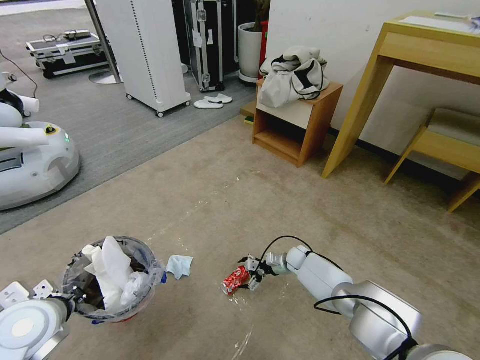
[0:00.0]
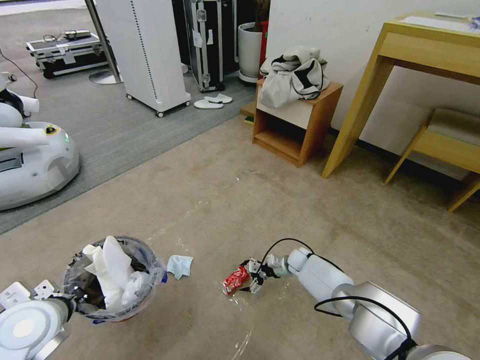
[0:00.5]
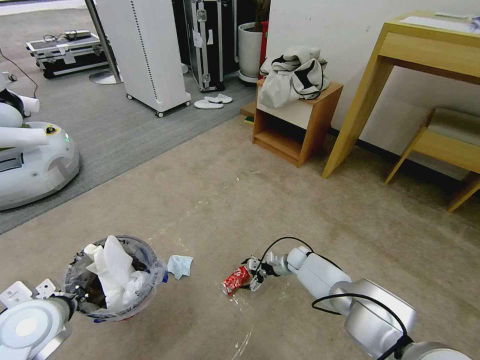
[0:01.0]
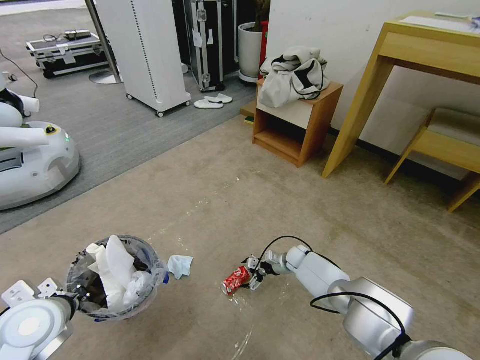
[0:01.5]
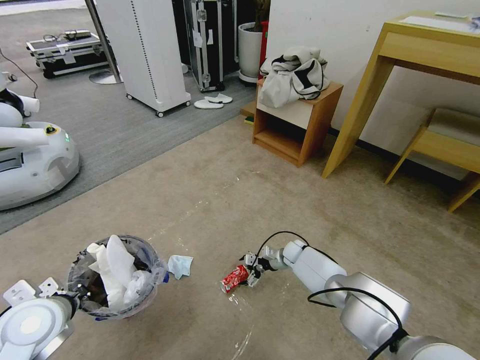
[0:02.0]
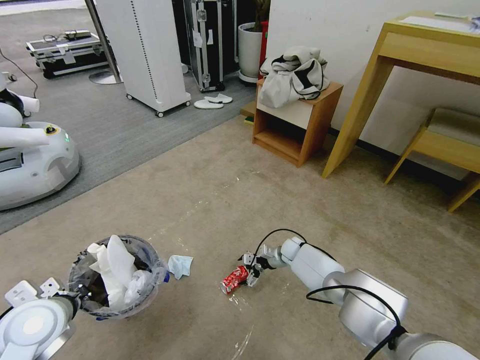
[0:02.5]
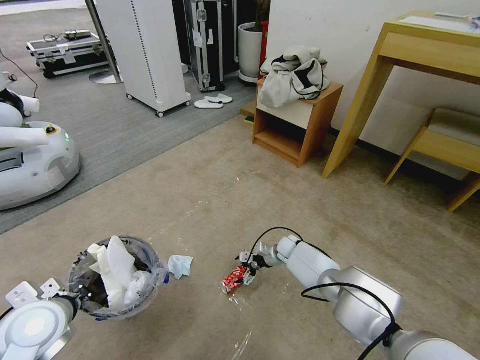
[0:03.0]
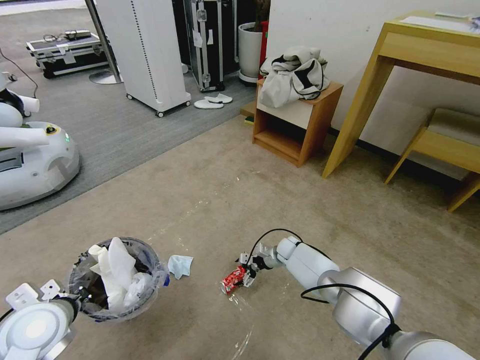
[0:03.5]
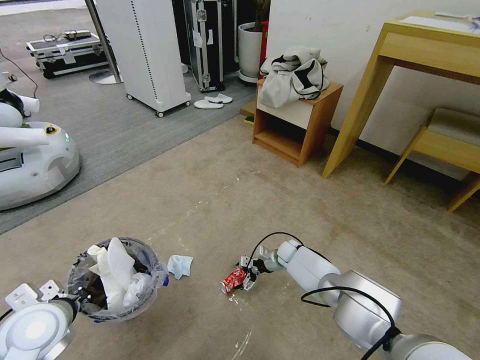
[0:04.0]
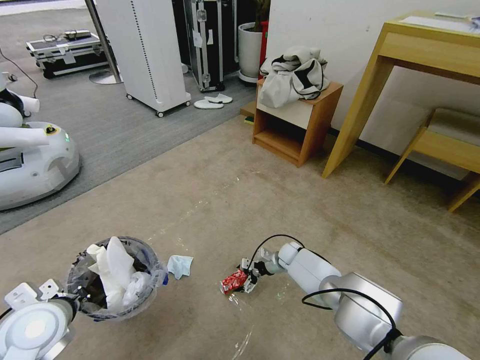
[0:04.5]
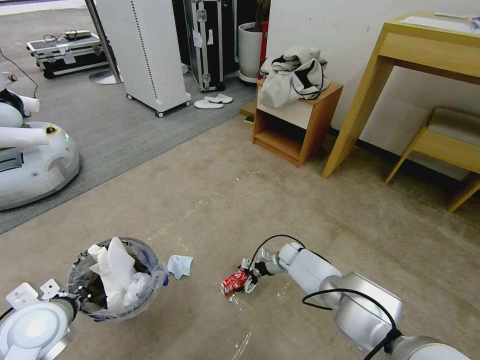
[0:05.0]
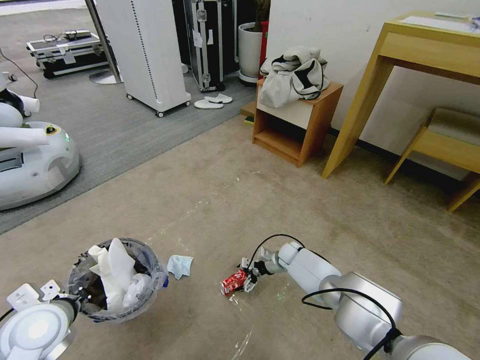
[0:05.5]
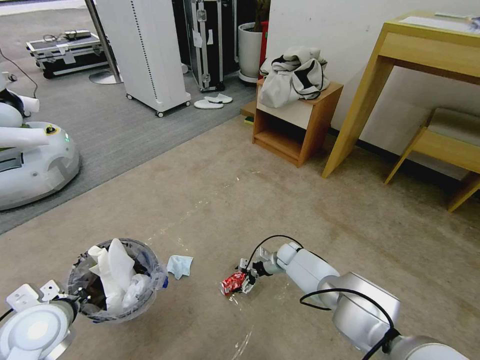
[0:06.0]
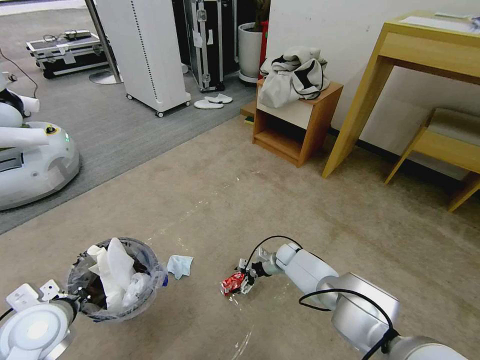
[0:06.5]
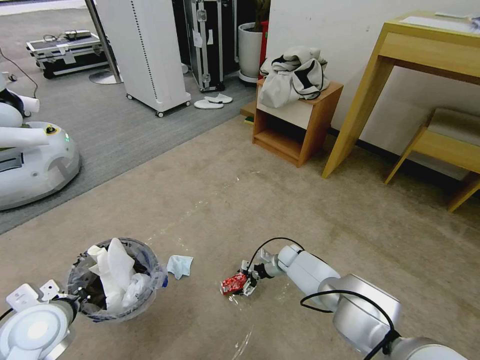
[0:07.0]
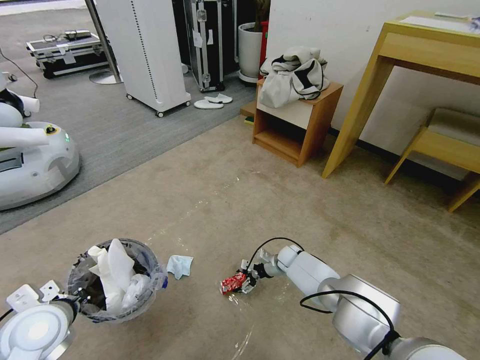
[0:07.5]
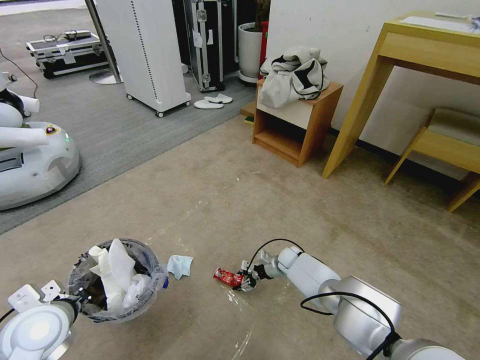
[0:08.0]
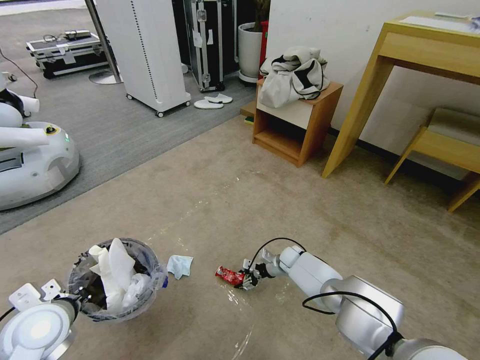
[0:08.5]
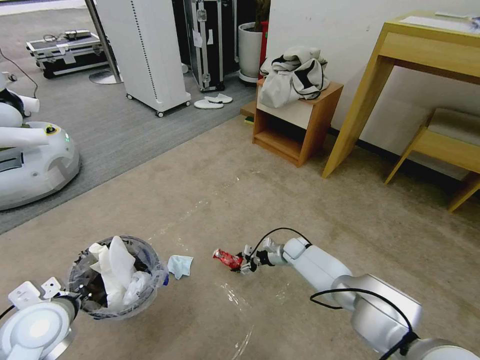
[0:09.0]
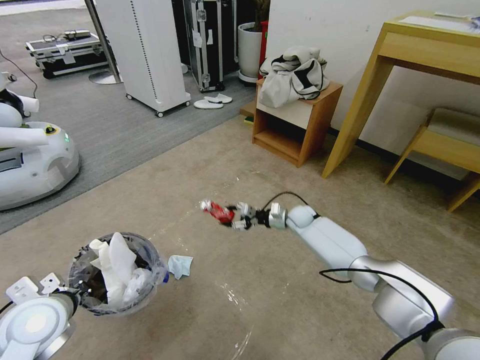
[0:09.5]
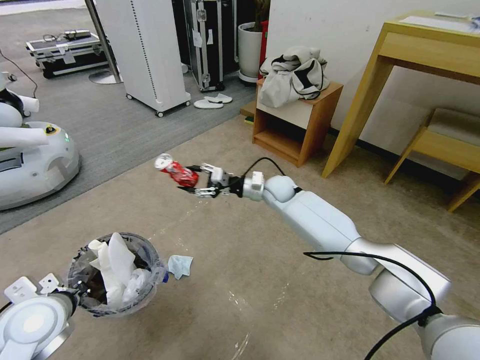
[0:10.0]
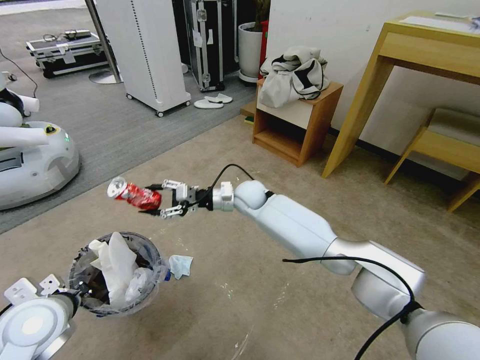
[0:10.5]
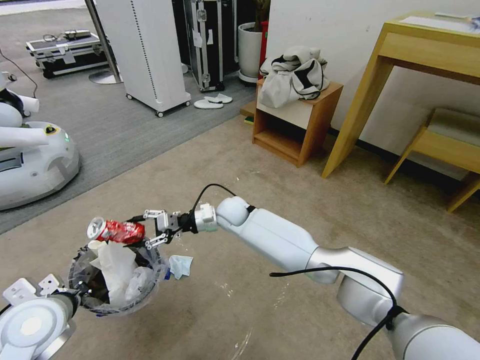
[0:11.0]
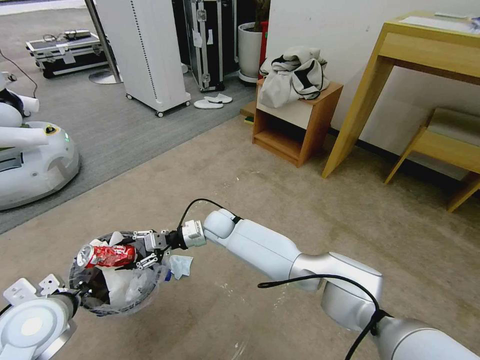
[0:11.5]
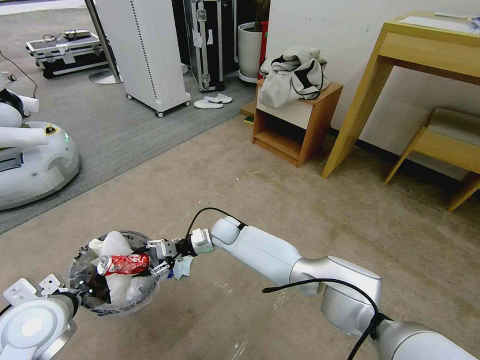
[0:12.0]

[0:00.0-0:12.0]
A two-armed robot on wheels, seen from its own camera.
Task of the whole recording: Pick up the trash bin and place the garbage on the floor into it.
0:00.0 to 0:04.0: The grippers stay close to where they were, moving slightly.
0:04.0 to 0:06.0: Neither gripper changes place.
0:06.0 to 0:08.0: The right gripper closes up.
0:08.0 to 0:10.0: The right gripper shifts approximately 25 cm upward.
0:10.0 to 0:12.0: The right gripper travels to the left, downward and backward by some 20 cm.

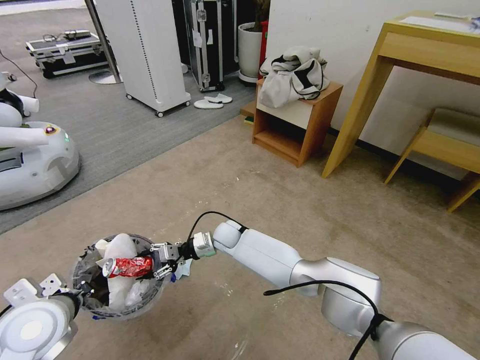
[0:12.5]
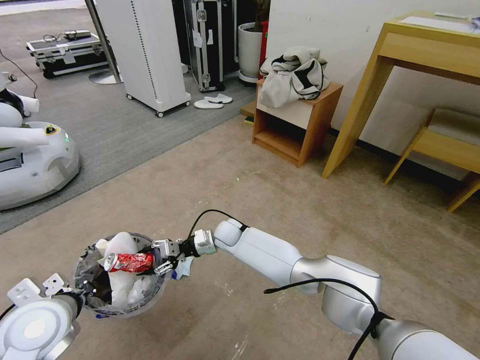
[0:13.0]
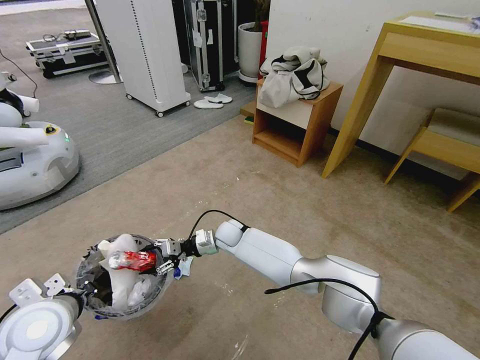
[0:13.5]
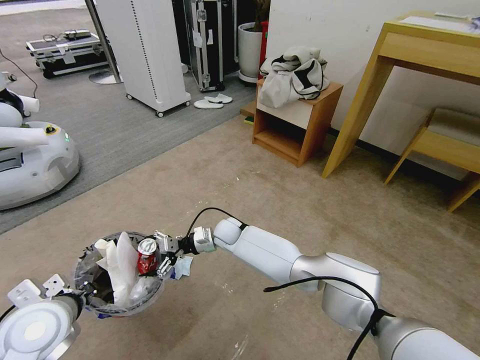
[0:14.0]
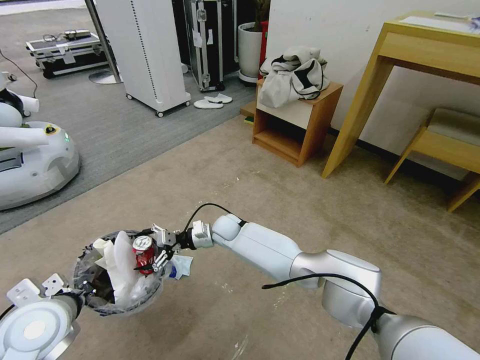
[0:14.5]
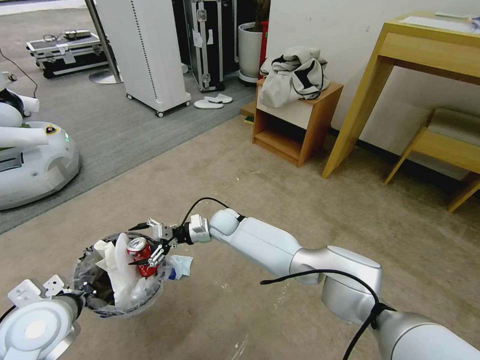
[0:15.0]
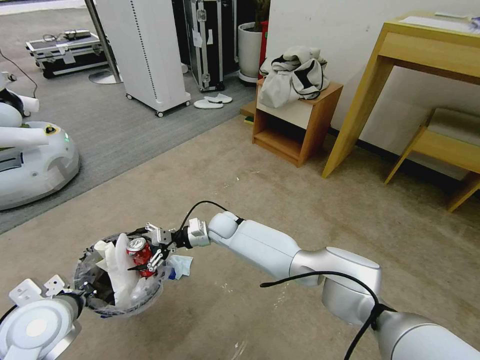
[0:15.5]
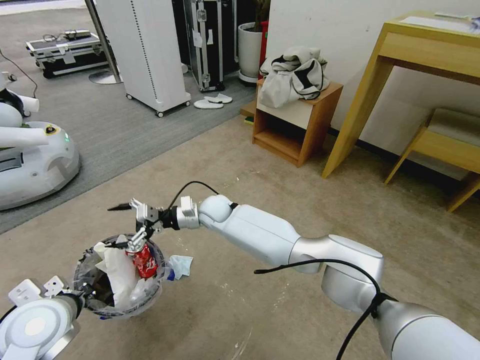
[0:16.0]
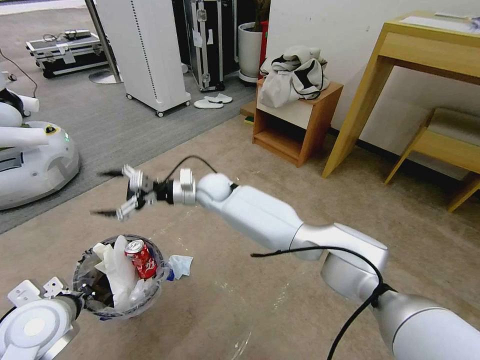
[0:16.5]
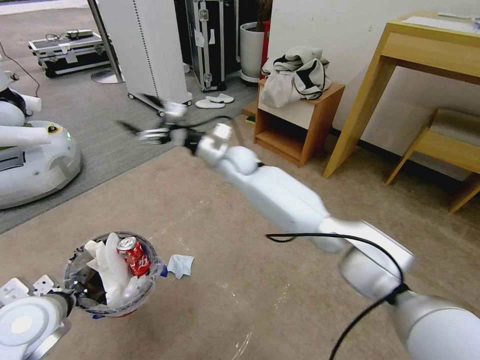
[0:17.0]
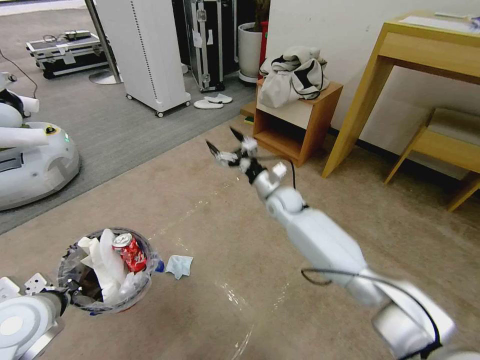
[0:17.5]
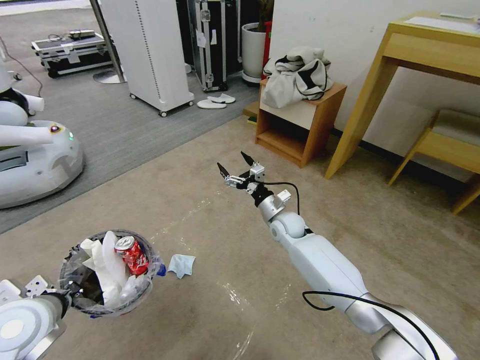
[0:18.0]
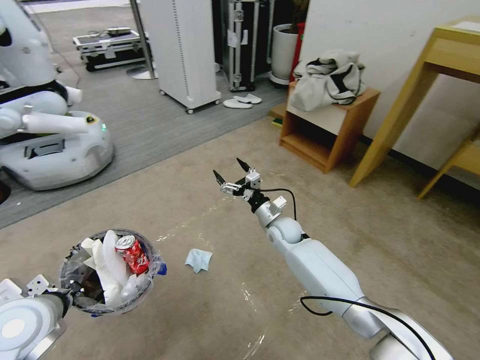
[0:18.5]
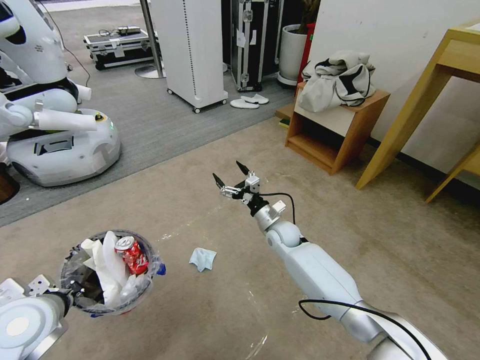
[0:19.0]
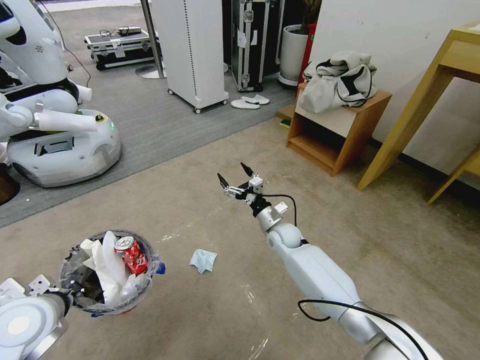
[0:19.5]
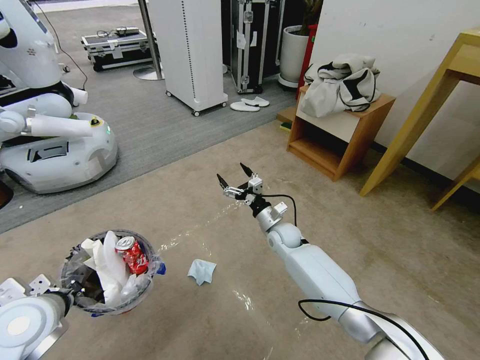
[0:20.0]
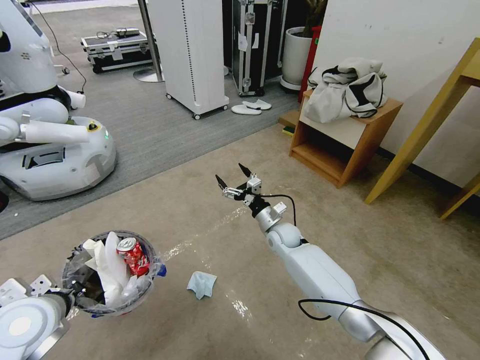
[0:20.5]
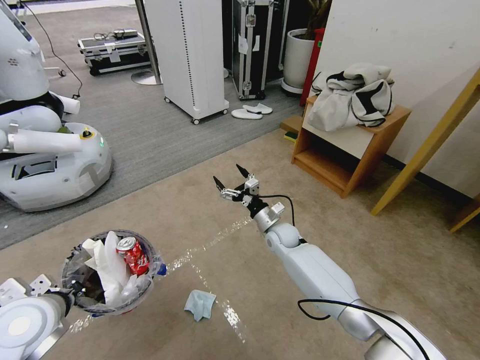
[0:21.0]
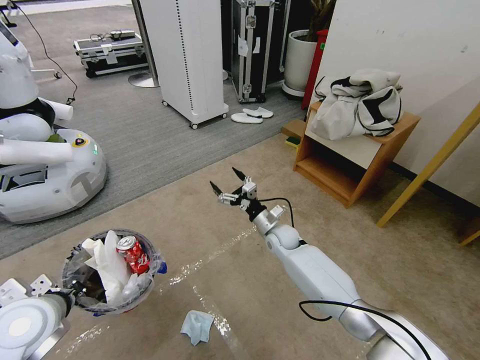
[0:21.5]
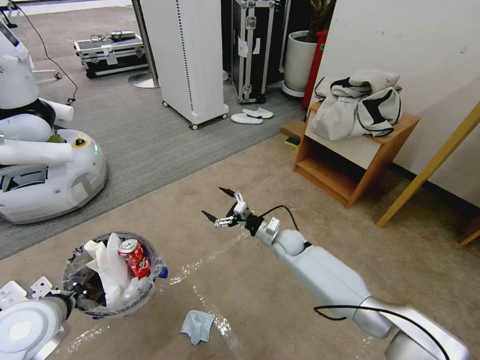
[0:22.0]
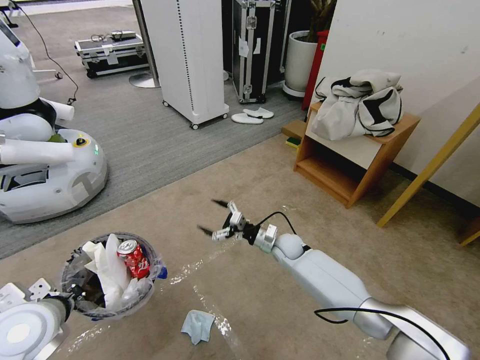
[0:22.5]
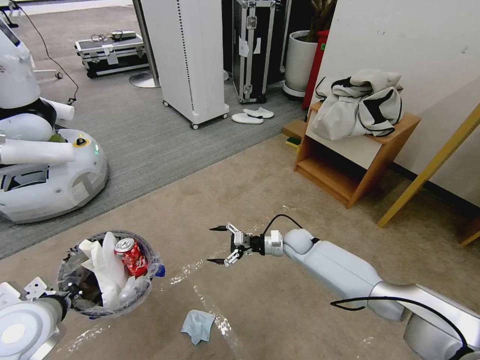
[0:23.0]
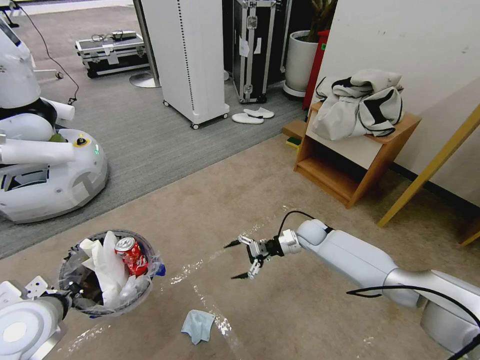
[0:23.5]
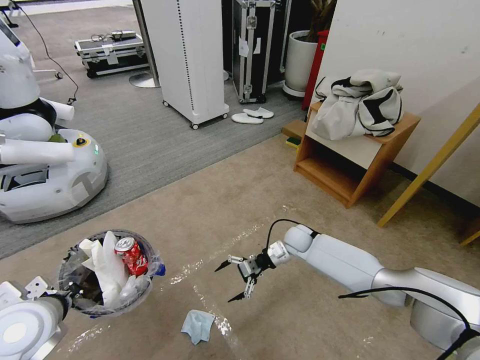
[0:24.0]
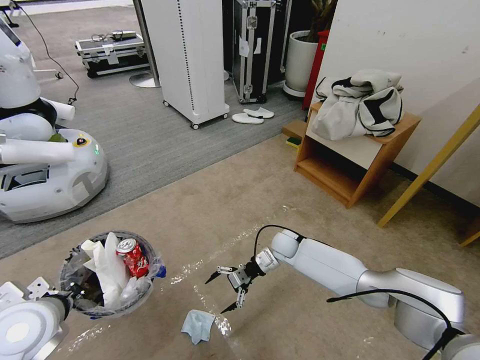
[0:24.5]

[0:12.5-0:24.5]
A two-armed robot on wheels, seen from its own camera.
Task of the whole recording: Pick up the trash bin and place the garbage on the floor into it.
0:12.5 to 0:14.5: The right gripper opens.
0:14.5 to 0:16.5: The right gripper moves upward, about 15 cm.
0:16.5 to 0:18.5: The right gripper goes approximately 25 cm to the right and downward.
0:22.5 to 0:24.5: The right gripper travels to the right and back again, approximately 10 cm each way.

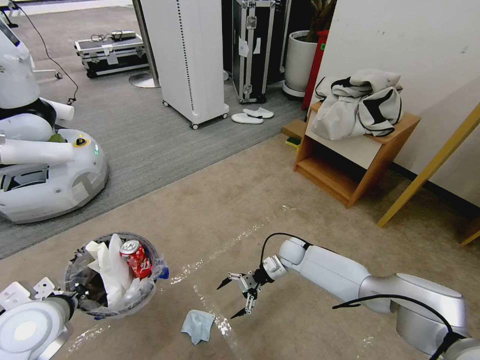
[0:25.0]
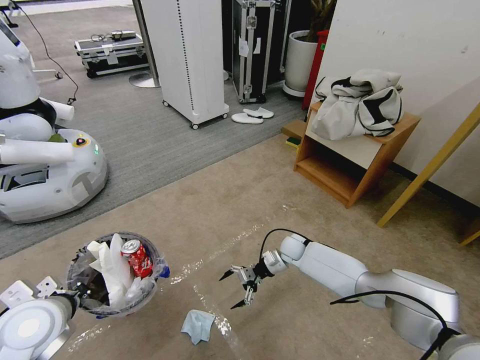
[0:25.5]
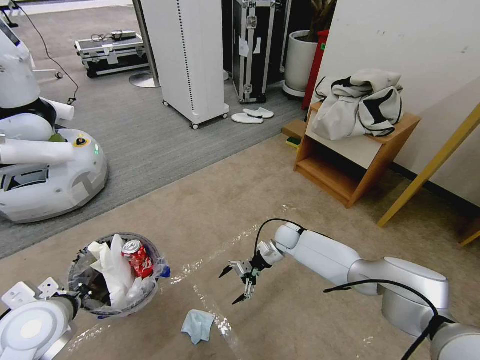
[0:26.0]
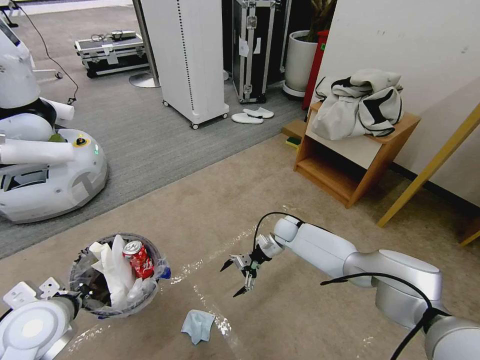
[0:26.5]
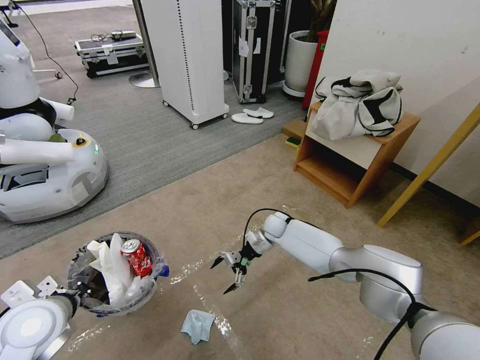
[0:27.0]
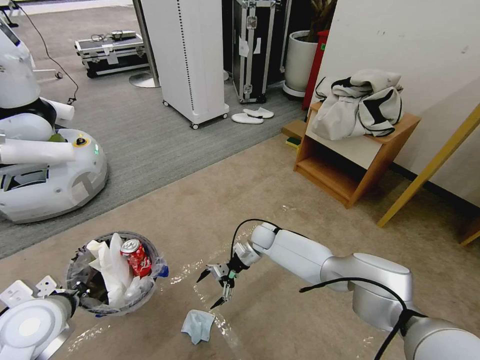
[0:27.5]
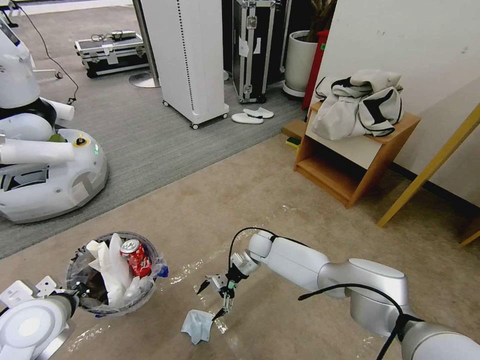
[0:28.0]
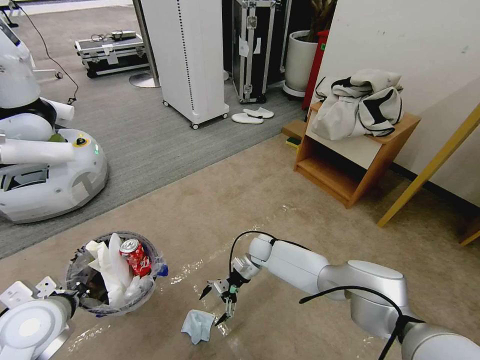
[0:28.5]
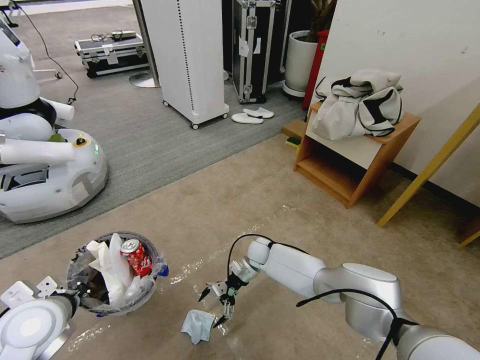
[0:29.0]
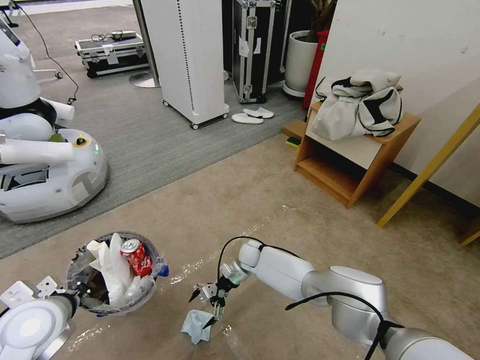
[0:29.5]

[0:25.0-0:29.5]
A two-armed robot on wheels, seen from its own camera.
Task of the whole recording: Pick up the trash bin and place the garbage on the floor into it.
0:25.0 to 0:27.0: The right gripper travels forward by some 5 cm.
0:27.0 to 0:29.5: The right gripper heads to the left, backward and downward, covering roughly 15 cm.
